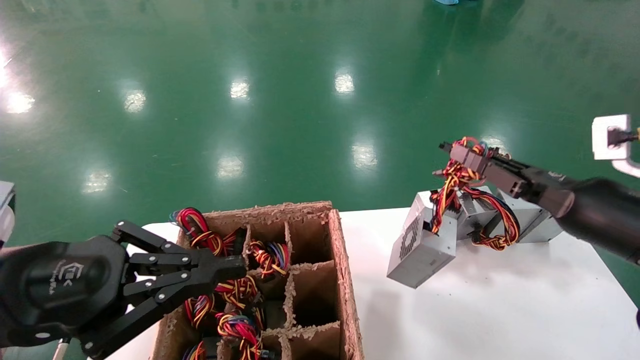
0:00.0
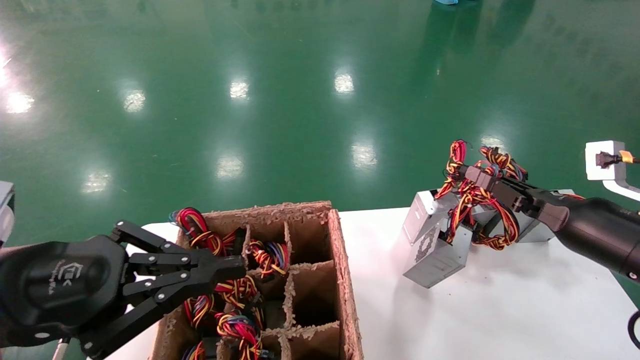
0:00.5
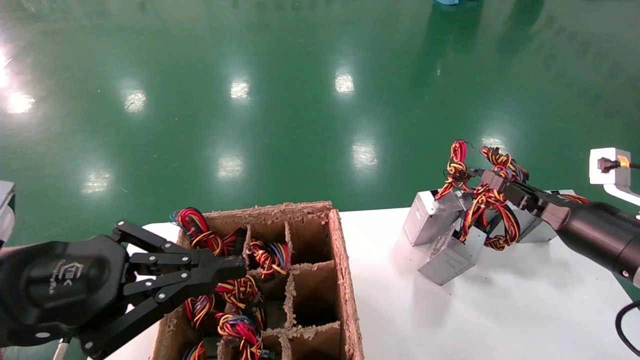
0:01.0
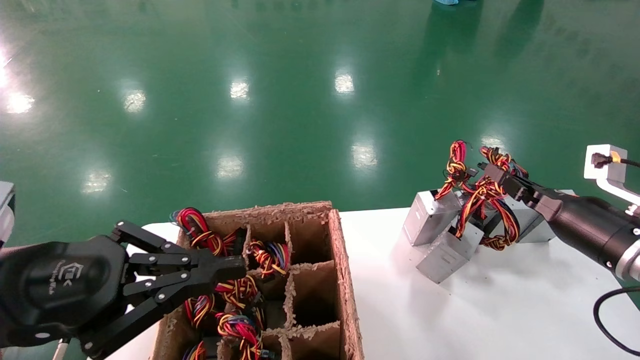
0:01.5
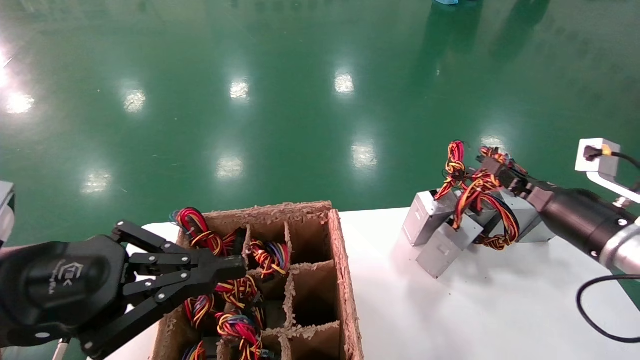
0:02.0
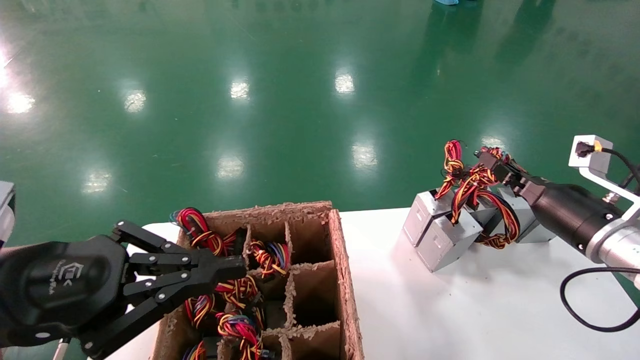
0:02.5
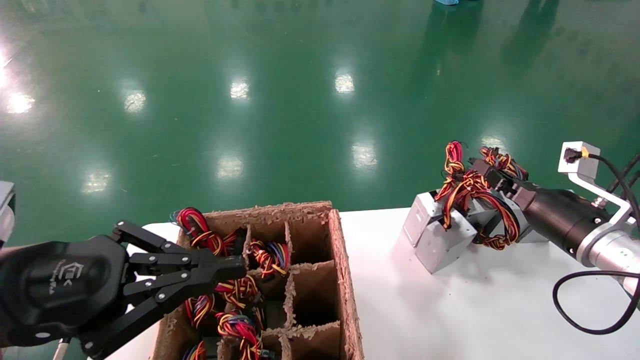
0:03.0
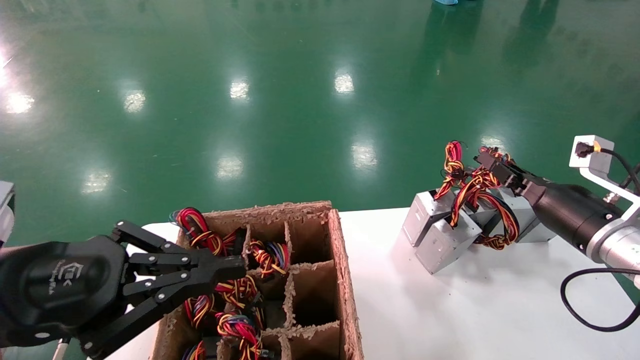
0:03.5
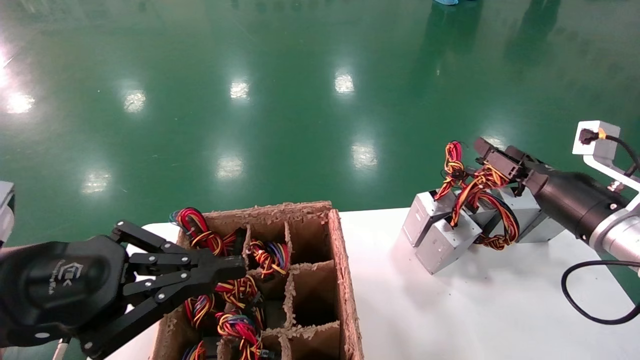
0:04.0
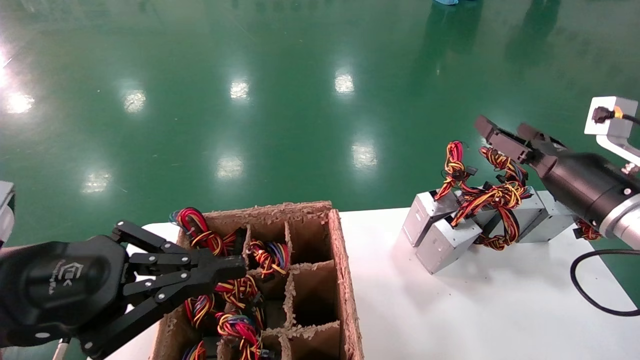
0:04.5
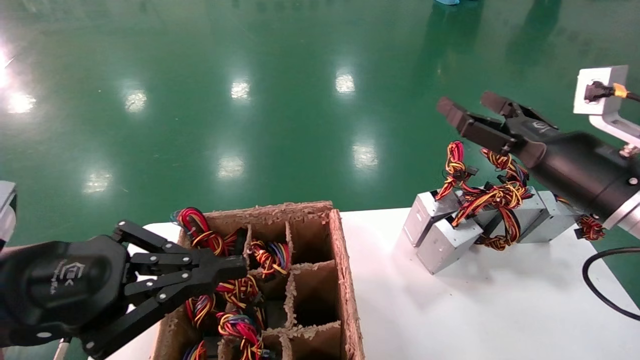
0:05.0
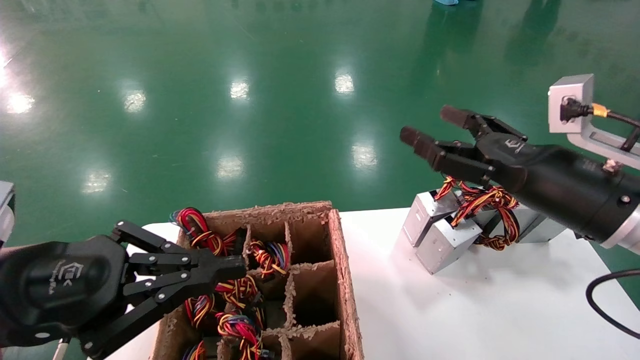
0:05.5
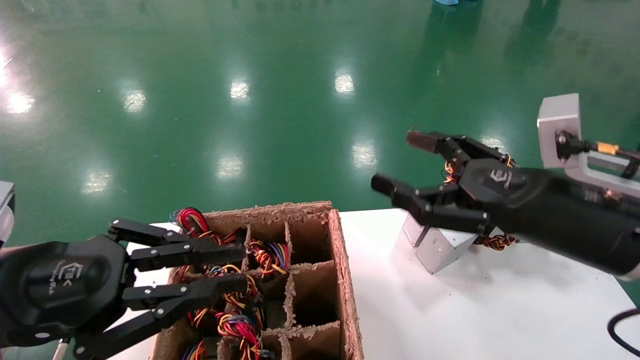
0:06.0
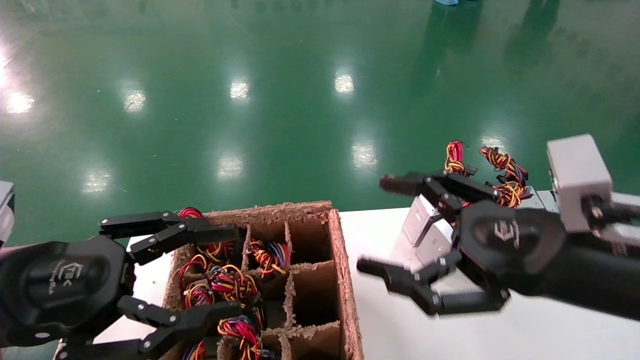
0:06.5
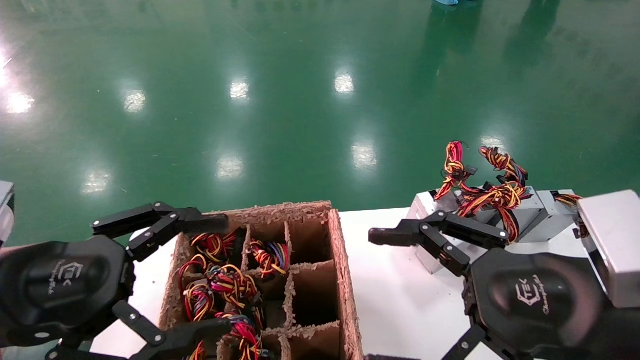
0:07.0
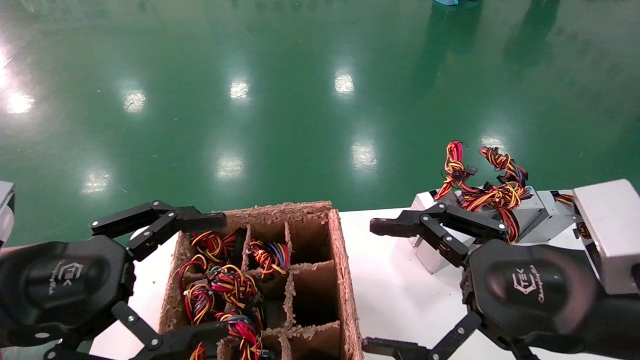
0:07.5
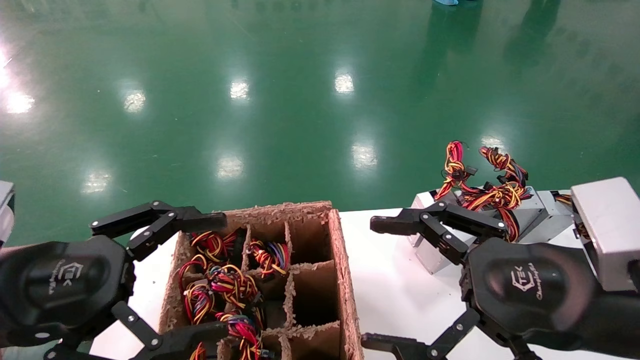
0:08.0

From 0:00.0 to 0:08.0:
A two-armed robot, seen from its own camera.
Step, from 0:00.0 to 0:03.0: Place the main unit power supply in the designated area.
From 0:00.0 to 0:02.0: The right gripper is displaced forward by roughly 5 cm.
From 0:02.0 to 0:04.0: The right gripper opens.
From 0:04.0 to 0:06.0: The right gripper travels backward and to the left by some 15 cm, and opens up.
From 0:06.0 to 0:08.0: The left gripper opens; the right gripper travels backward by roughly 5 cm.
